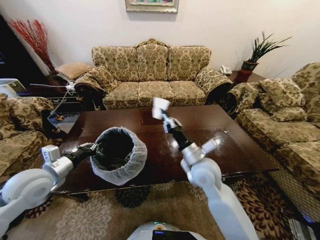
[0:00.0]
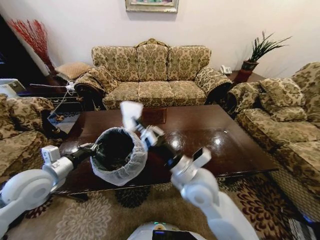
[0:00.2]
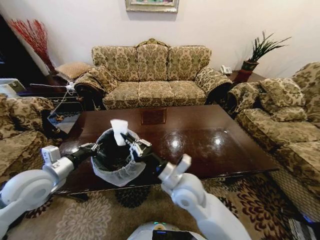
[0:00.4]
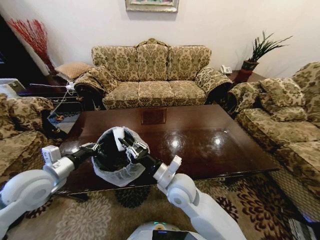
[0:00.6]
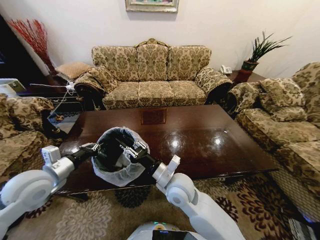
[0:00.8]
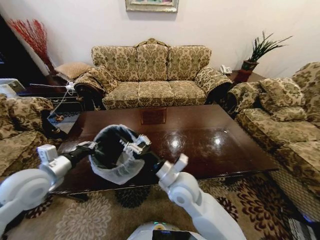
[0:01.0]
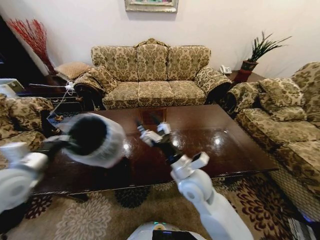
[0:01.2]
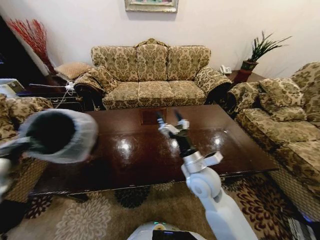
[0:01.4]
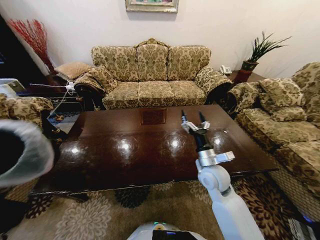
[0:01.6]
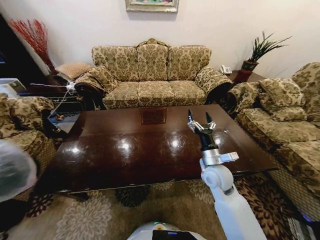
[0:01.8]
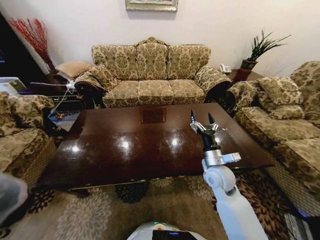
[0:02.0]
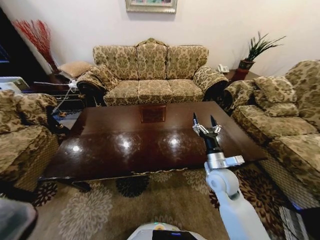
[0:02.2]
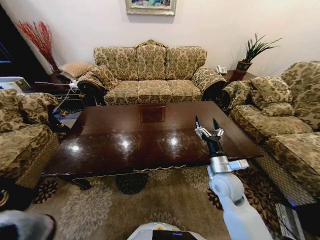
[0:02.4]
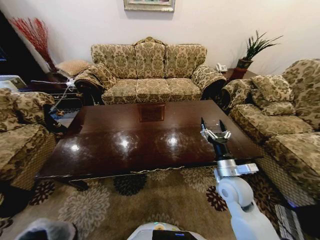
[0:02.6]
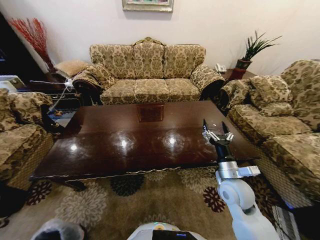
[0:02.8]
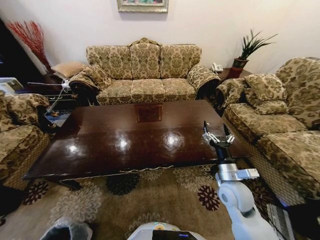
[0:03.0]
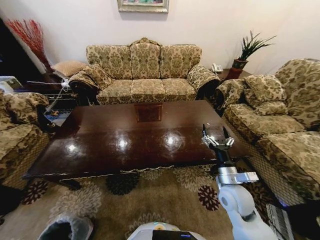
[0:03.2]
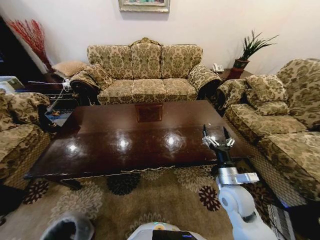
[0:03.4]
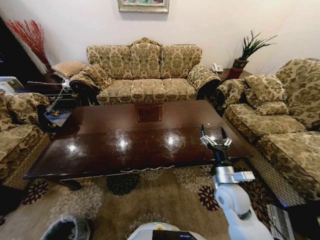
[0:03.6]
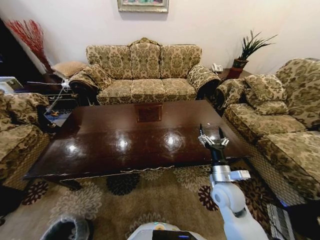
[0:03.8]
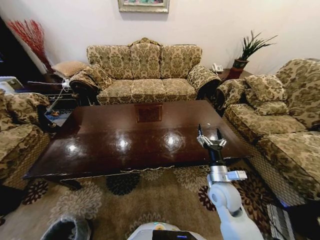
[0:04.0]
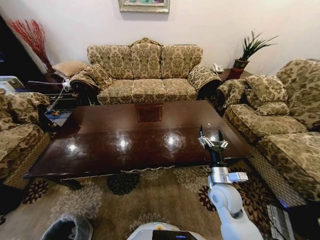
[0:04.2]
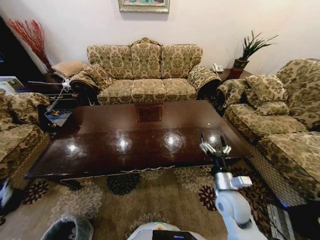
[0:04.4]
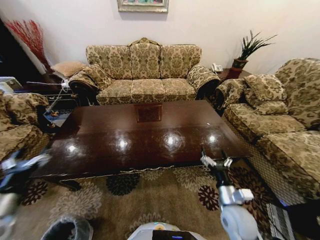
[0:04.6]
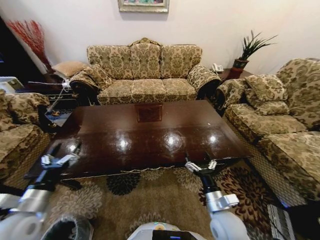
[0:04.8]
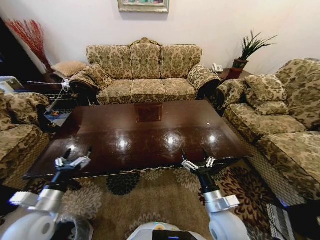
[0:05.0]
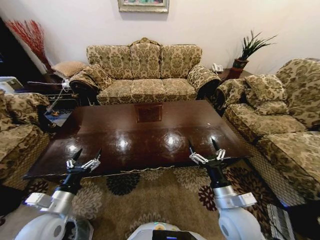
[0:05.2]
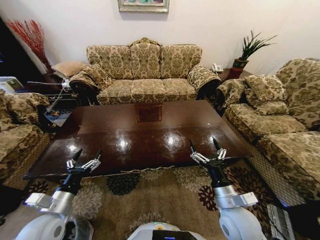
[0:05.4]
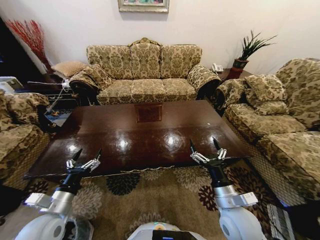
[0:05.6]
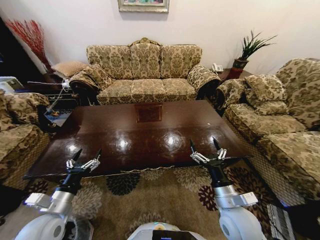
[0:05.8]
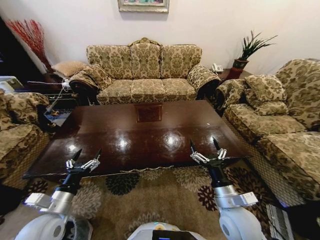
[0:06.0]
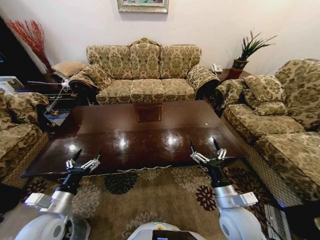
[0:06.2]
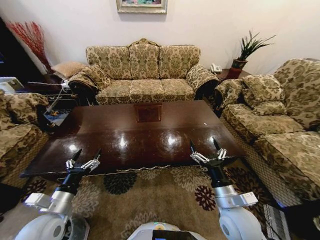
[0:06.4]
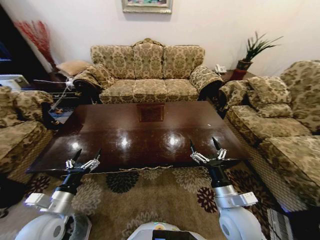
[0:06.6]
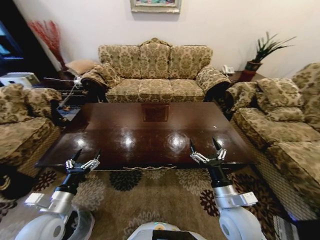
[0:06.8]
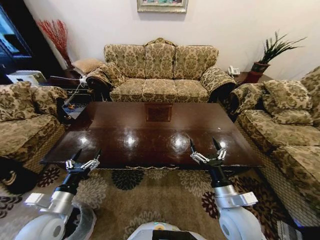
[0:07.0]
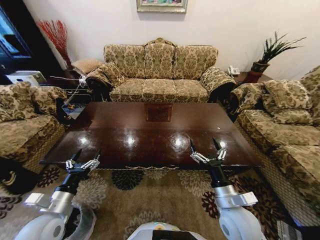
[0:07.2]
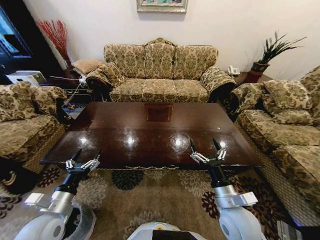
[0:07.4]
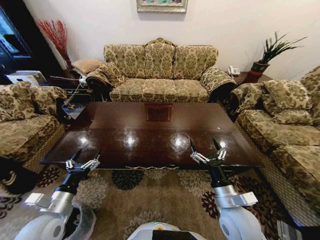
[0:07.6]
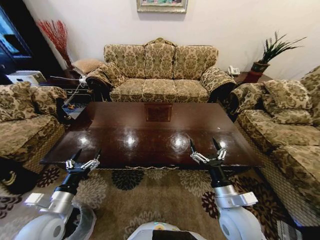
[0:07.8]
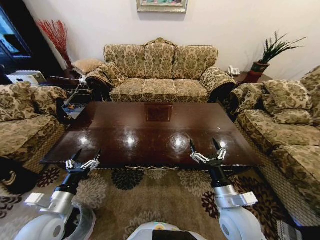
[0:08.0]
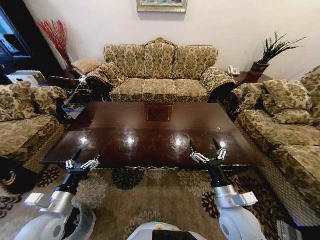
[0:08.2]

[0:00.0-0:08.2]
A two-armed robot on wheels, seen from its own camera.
Task of the whole recording: Move to the front of the table and place the trash on the table into the trash bin.
0:00.0 to 0:01.6: The left gripper is displaced to the left and backward by approximately 20 cm, while the right gripper reaches roughly 10 cm to the left, then returns, and opens its fingers.
0:01.6 to 0:03.2: The left gripper goes roughly 50 cm downward. The right gripper shifts roughly 10 cm to the right and backward.
0:03.2 to 0:05.0: The right gripper heads backward and to the left, covering some 10 cm. Meanwhile the left gripper heads upward, covering some 35 cm, and opens its fingers.

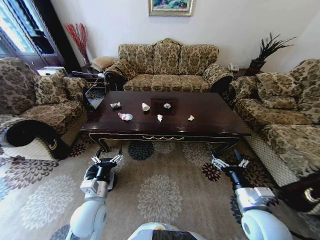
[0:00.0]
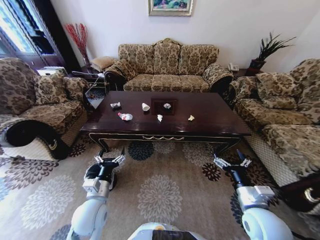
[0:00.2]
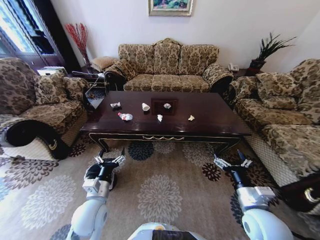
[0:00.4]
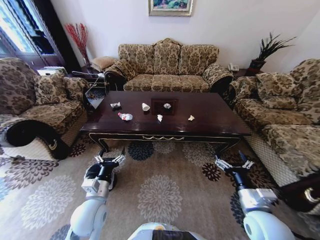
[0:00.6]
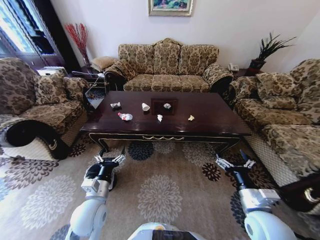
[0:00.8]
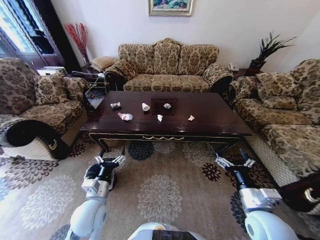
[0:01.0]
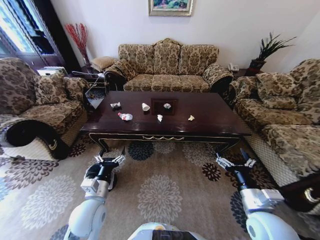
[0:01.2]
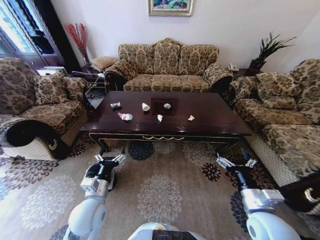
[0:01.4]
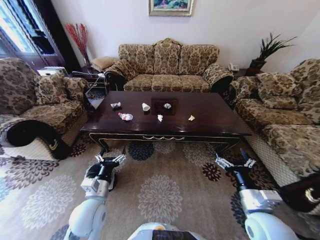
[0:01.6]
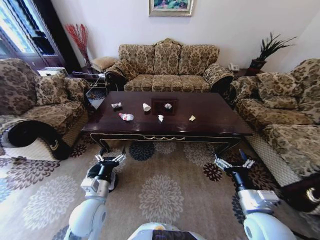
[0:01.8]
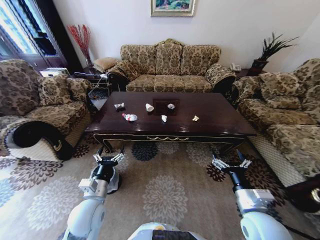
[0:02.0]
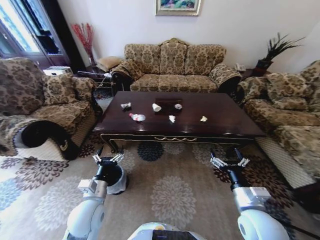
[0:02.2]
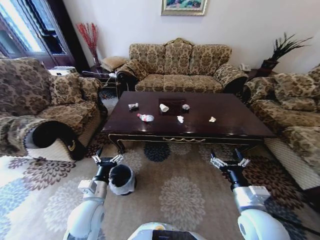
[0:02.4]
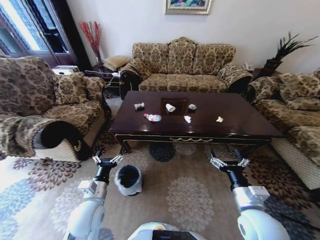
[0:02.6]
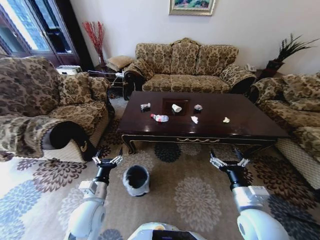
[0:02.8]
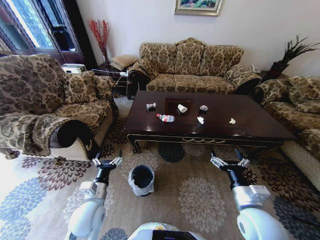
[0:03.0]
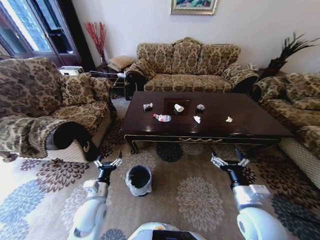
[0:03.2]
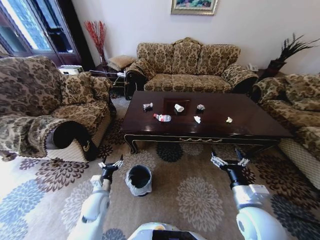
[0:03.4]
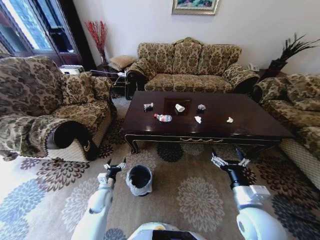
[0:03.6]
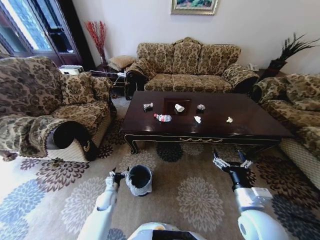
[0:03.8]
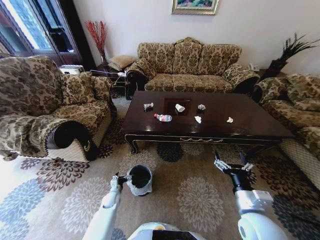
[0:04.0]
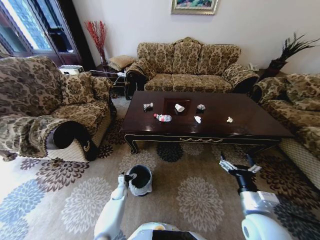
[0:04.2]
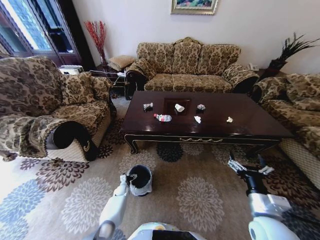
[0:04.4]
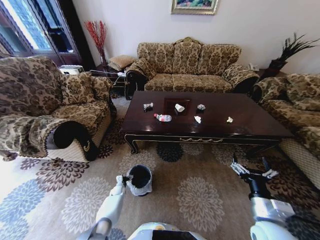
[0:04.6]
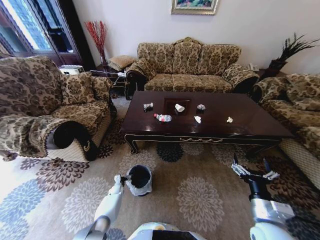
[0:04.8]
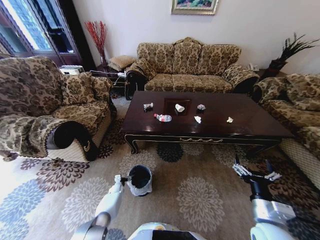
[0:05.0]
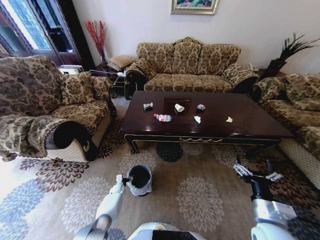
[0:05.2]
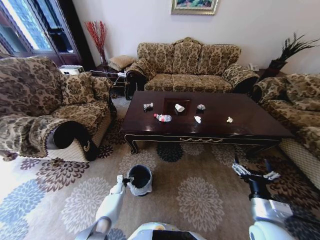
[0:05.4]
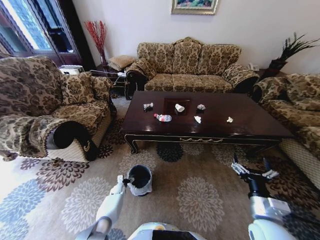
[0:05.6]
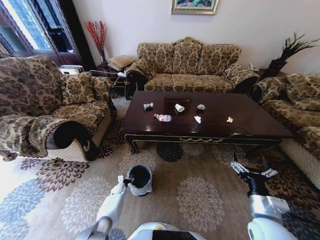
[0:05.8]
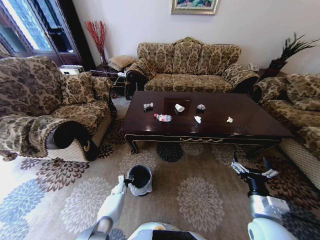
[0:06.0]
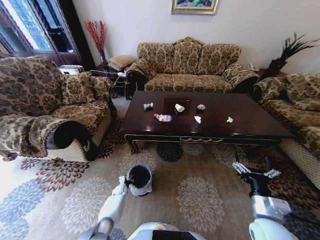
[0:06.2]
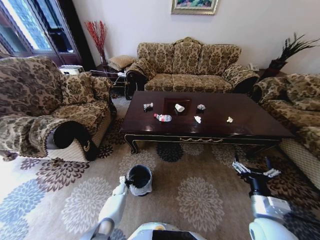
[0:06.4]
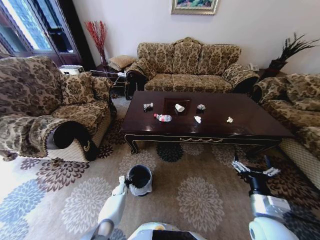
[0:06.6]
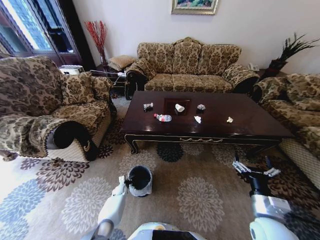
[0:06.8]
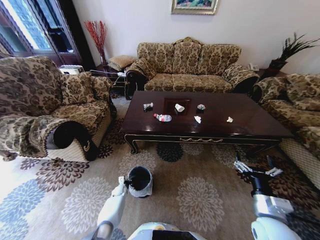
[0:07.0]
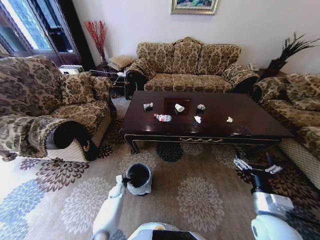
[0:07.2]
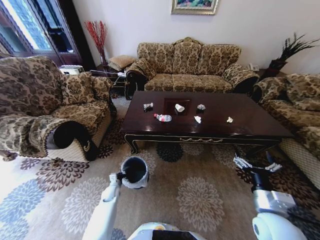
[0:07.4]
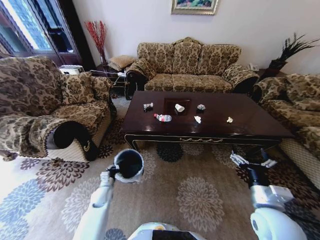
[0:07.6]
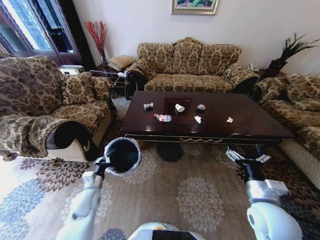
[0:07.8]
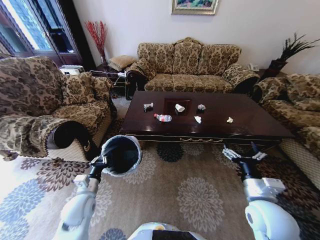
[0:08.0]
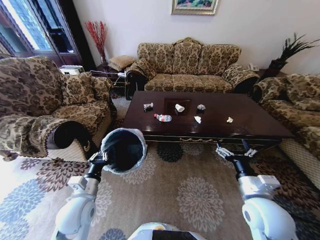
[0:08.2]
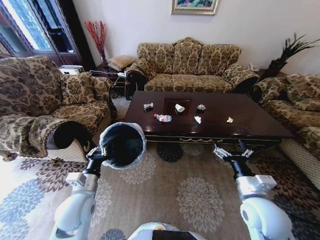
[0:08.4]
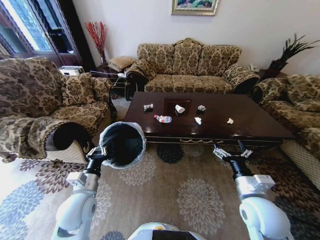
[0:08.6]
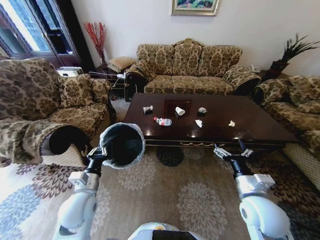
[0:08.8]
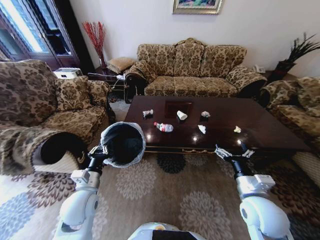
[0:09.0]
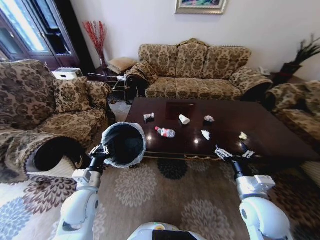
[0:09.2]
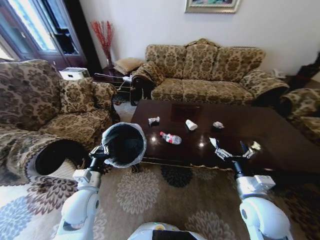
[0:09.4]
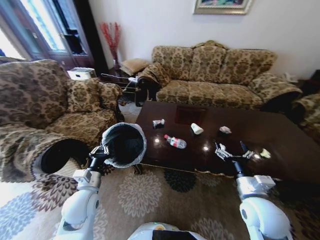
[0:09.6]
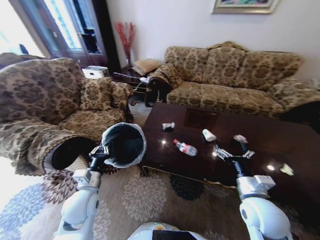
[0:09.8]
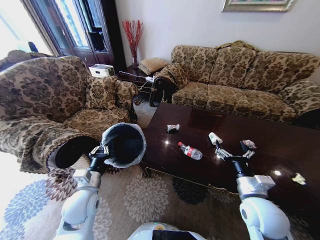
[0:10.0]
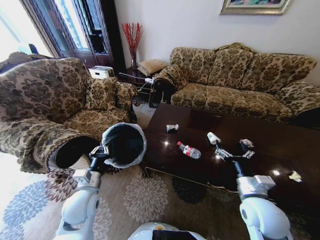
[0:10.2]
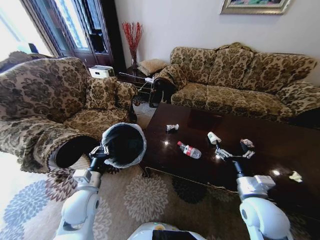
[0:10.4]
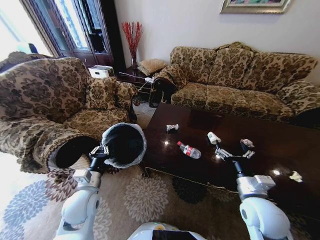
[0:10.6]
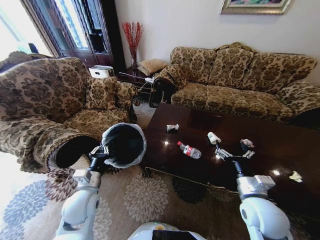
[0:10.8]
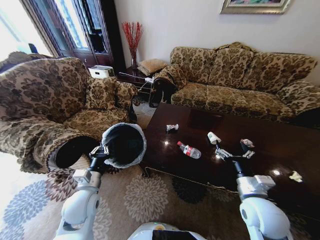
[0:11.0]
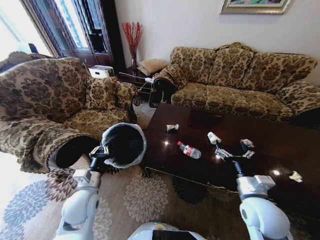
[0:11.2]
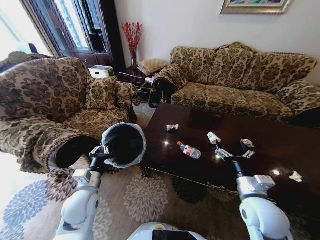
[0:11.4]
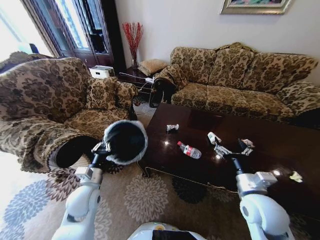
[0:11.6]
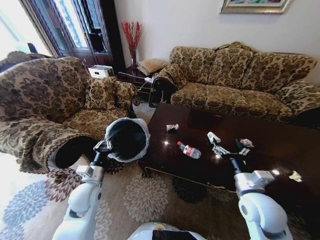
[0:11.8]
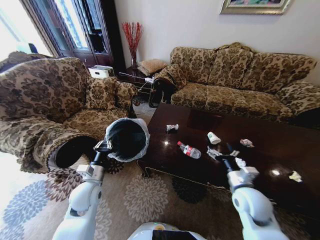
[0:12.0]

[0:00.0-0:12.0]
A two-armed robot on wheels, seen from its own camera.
Task of the whole recording: Move to the front of the table and place the trash on the table into the trash bin.
0:03.0 to 0:04.4: The left gripper moves downward and forward, approximately 35 cm.
0:04.4 to 0:06.0: The grippers move only a little.
0:06.0 to 0:07.6: The left gripper travels upward and backward by approximately 20 cm, and closes up.
0:07.6 to 0:09.0: The left gripper is displaced upward by about 20 cm.
0:10.4 to 0:12.0: The right gripper moves about 5 cm.

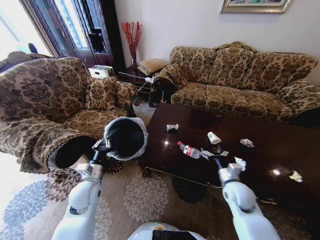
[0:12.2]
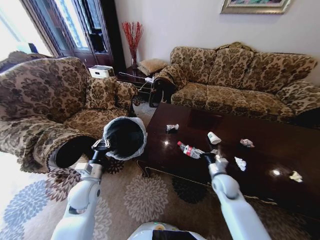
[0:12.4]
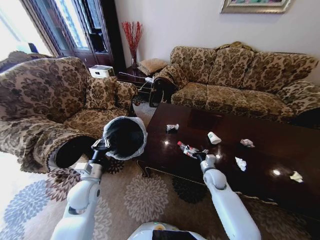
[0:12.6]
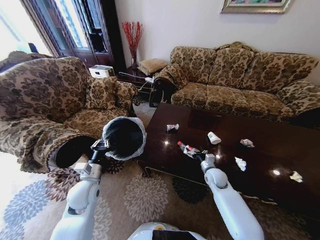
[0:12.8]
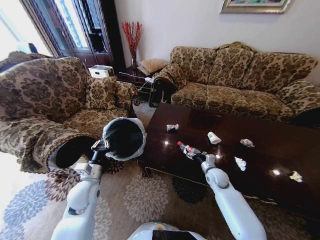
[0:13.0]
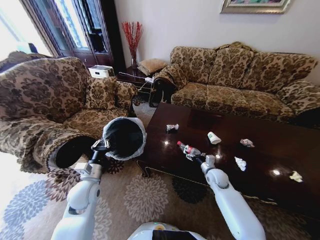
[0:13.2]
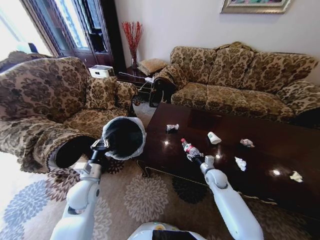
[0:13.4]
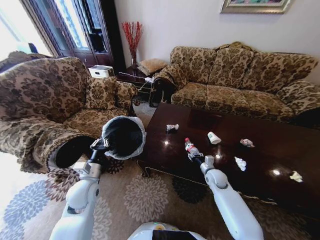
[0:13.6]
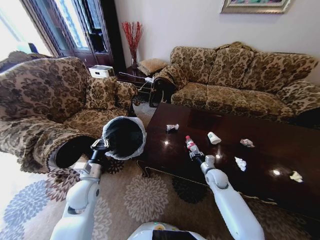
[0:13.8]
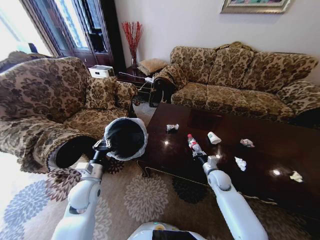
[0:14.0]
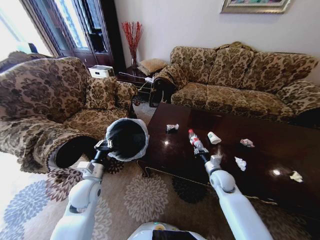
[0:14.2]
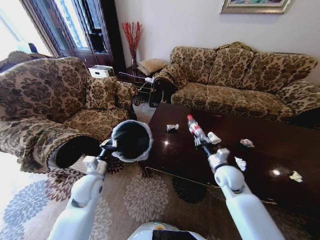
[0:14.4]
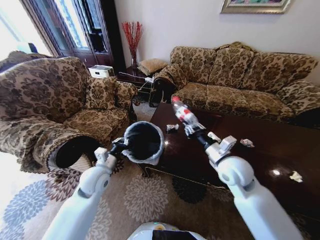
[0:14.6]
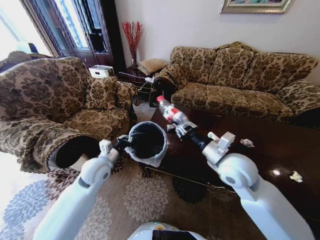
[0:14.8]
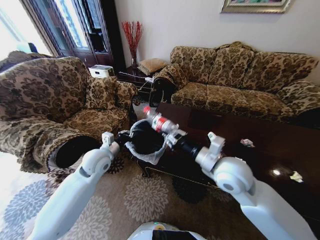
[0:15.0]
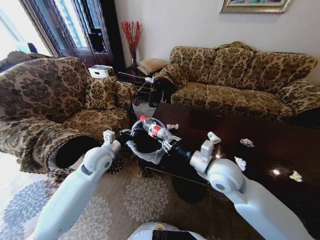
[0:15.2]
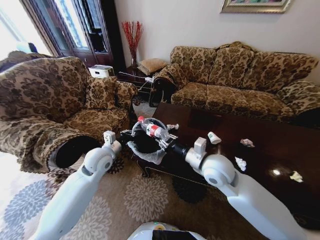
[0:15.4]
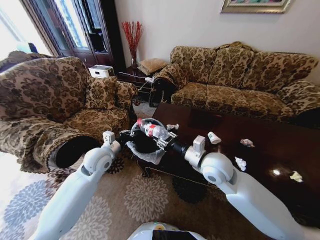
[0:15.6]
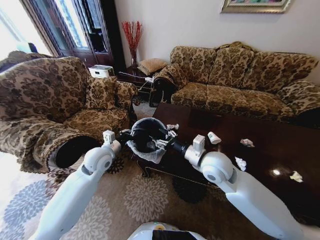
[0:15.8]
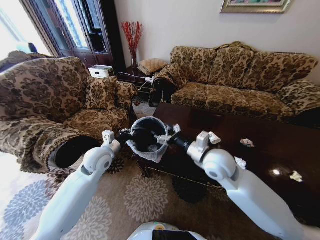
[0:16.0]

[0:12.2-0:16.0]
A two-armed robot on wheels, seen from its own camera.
Task of the whole recording: Move to the front of the table and place the trash on the table into the trash bin.
0:12.2 to 0:13.4: The right gripper goes some 15 cm forward and downward.
0:13.4 to 0:14.8: The left gripper heads forward and upward, covering roughly 10 cm; the right gripper moves upward, some 25 cm, and closes up.
0:14.8 to 0:16.0: The right gripper opens up.
